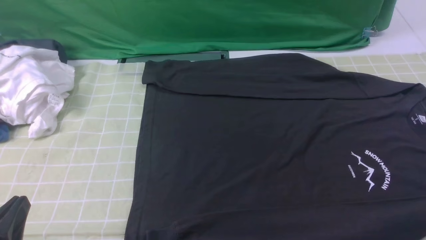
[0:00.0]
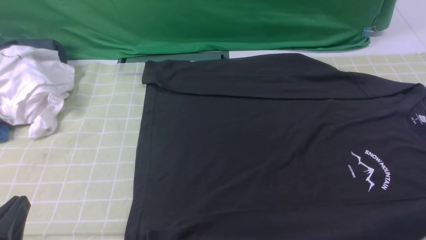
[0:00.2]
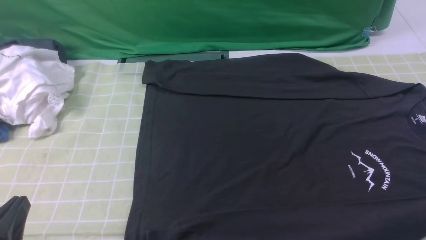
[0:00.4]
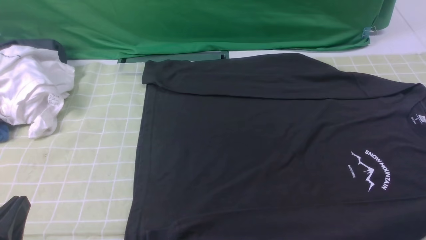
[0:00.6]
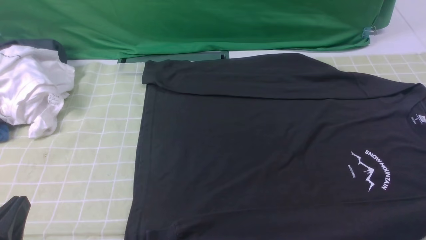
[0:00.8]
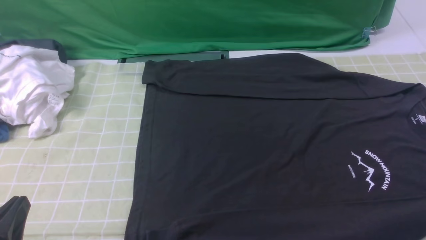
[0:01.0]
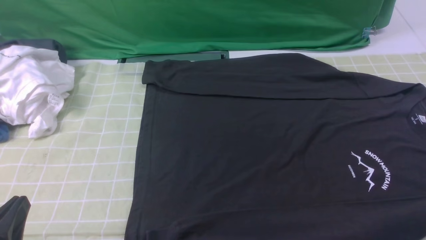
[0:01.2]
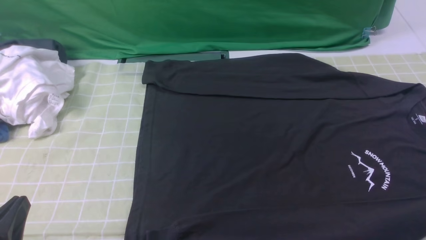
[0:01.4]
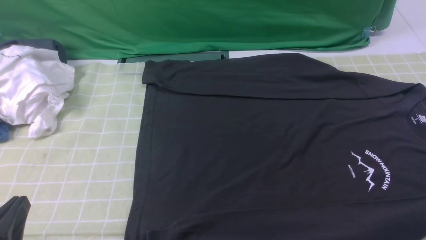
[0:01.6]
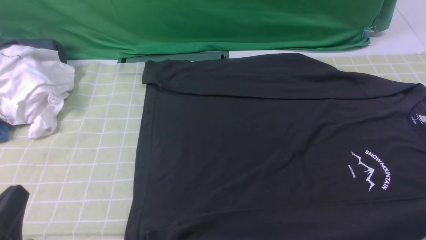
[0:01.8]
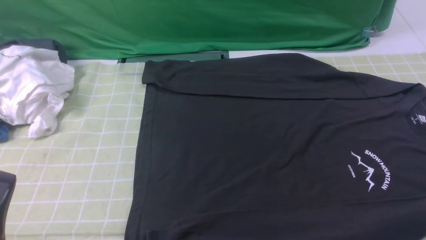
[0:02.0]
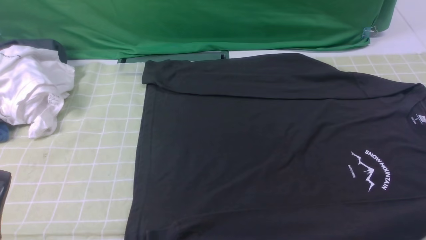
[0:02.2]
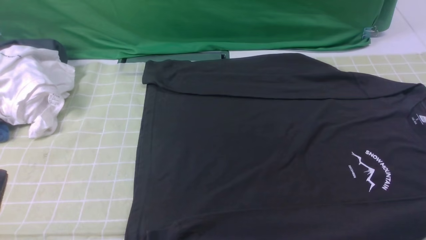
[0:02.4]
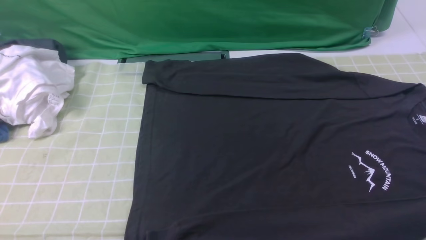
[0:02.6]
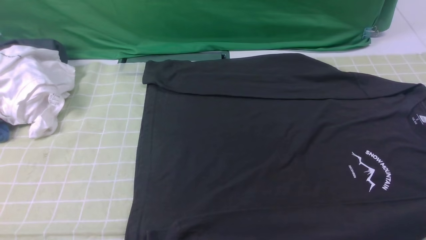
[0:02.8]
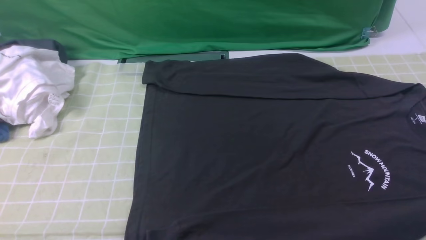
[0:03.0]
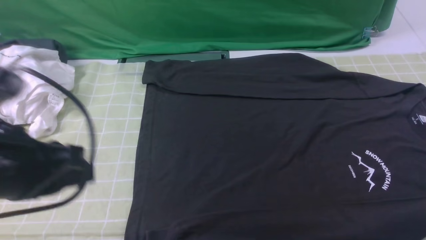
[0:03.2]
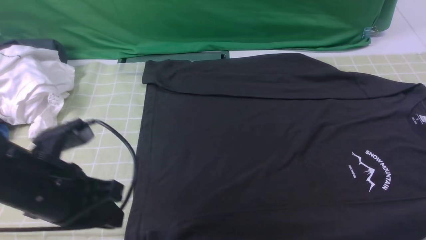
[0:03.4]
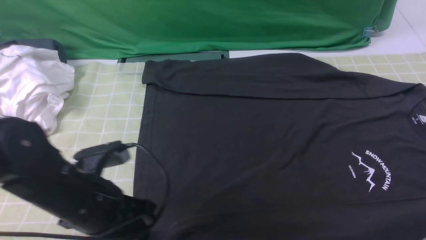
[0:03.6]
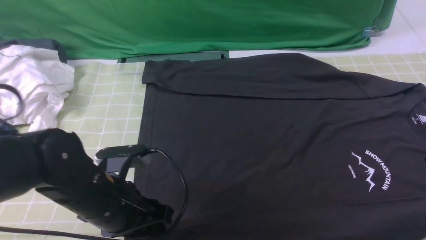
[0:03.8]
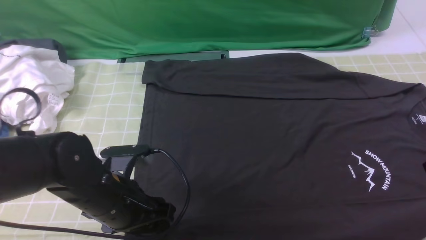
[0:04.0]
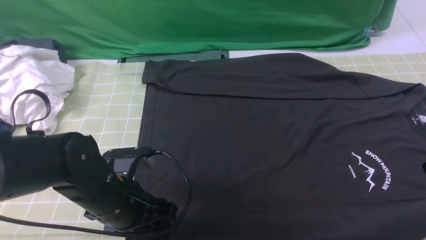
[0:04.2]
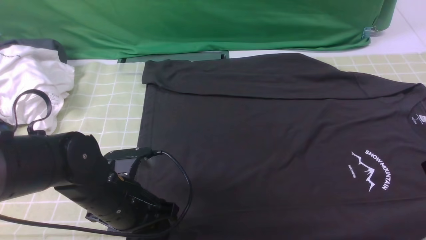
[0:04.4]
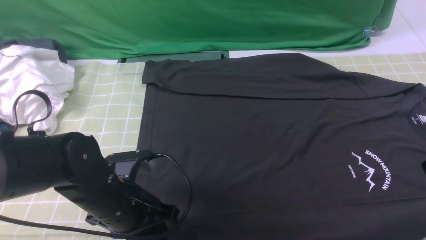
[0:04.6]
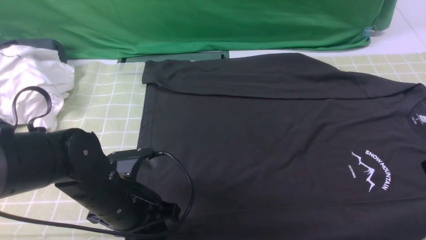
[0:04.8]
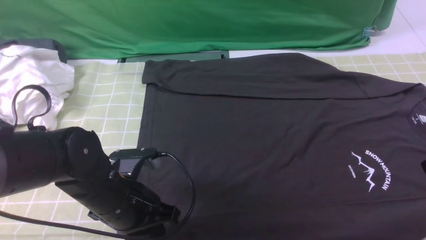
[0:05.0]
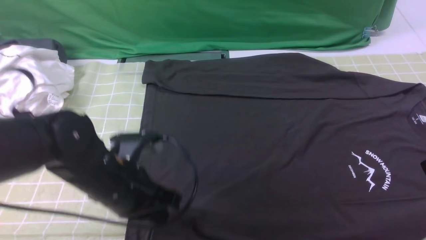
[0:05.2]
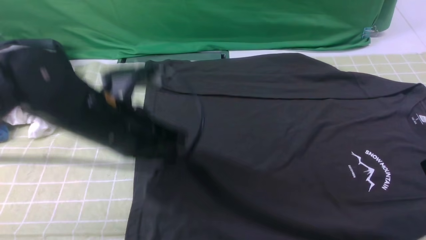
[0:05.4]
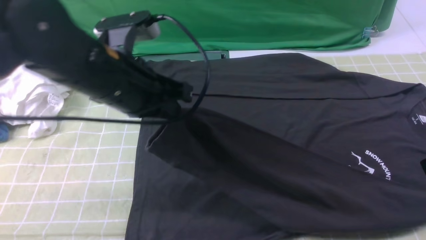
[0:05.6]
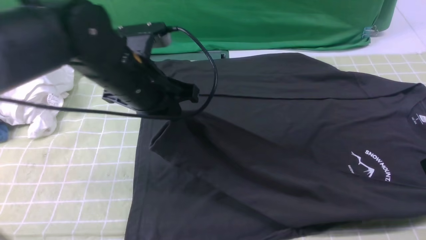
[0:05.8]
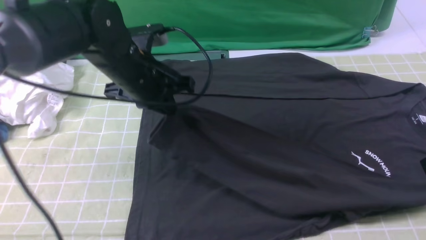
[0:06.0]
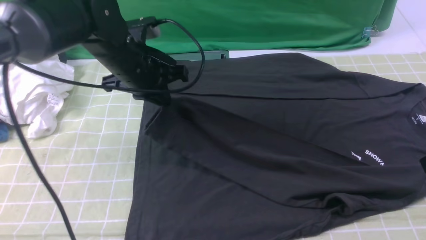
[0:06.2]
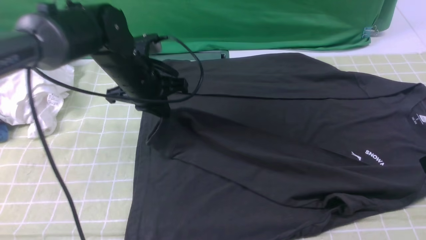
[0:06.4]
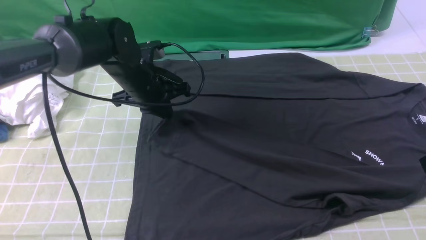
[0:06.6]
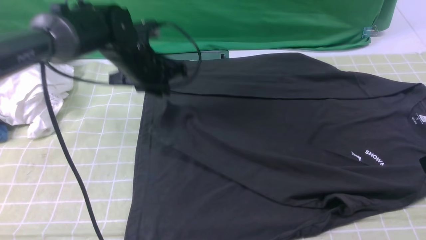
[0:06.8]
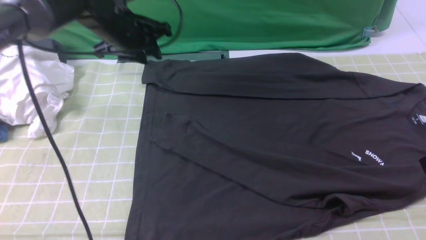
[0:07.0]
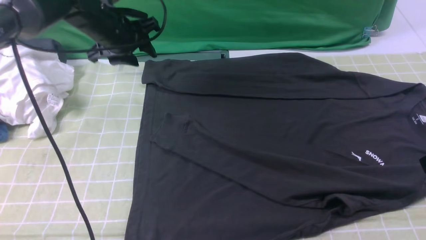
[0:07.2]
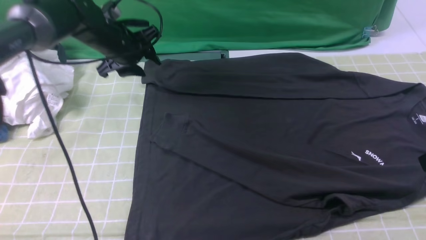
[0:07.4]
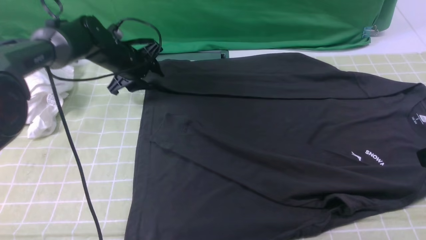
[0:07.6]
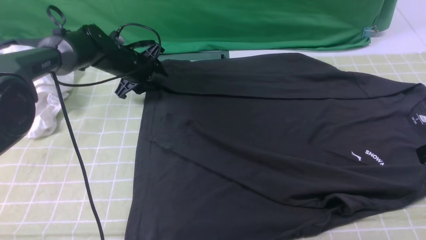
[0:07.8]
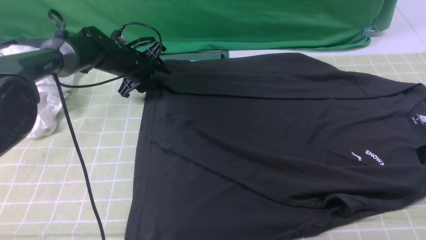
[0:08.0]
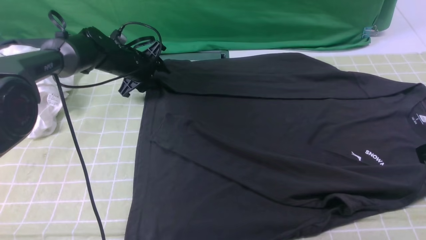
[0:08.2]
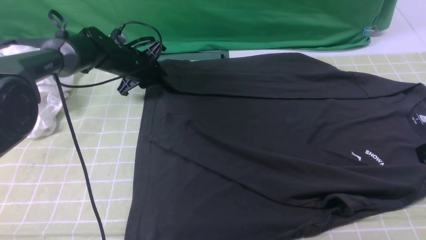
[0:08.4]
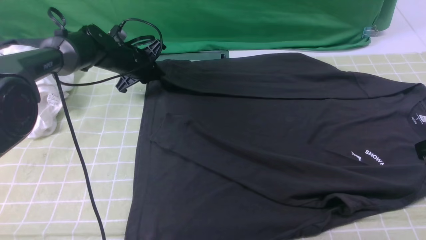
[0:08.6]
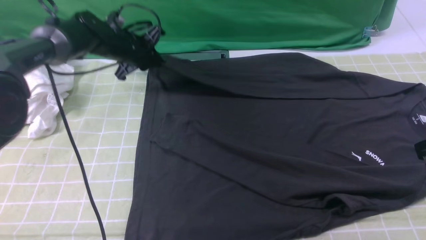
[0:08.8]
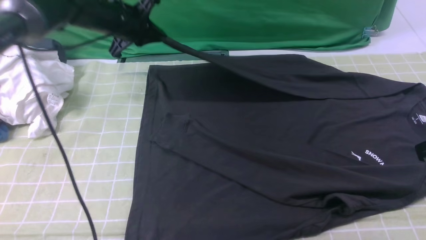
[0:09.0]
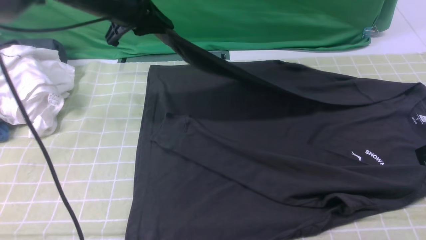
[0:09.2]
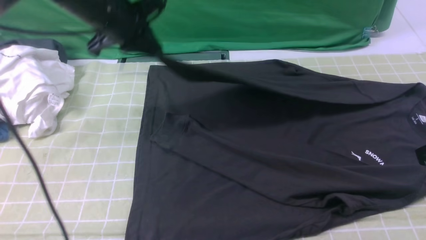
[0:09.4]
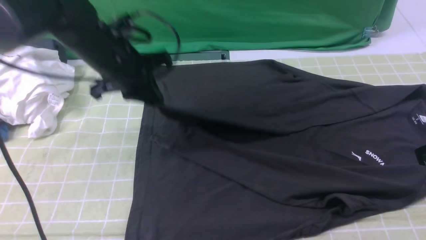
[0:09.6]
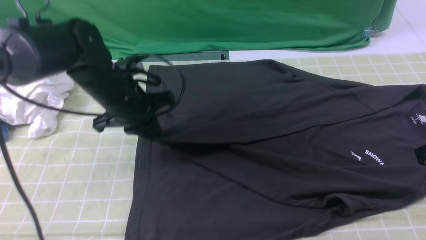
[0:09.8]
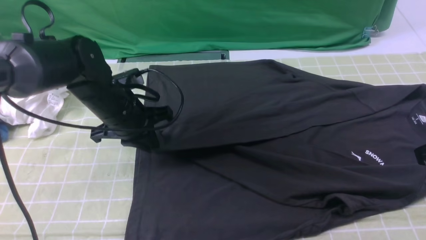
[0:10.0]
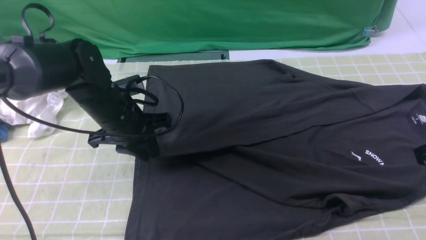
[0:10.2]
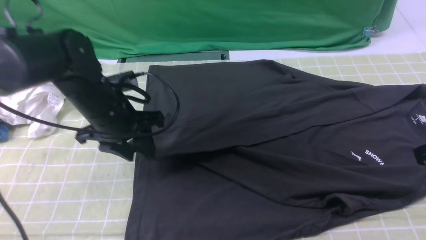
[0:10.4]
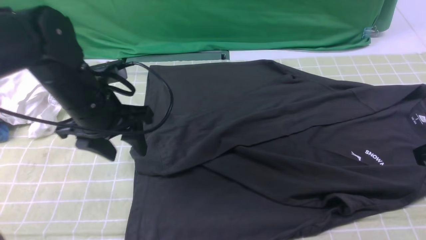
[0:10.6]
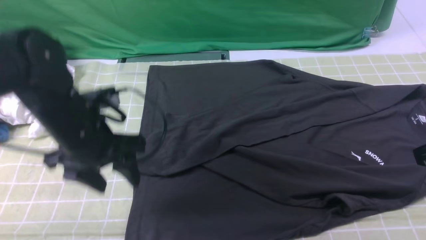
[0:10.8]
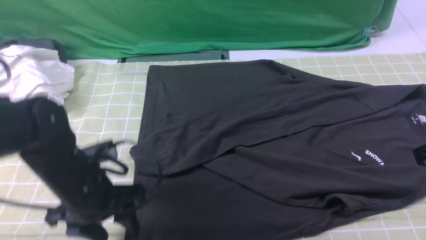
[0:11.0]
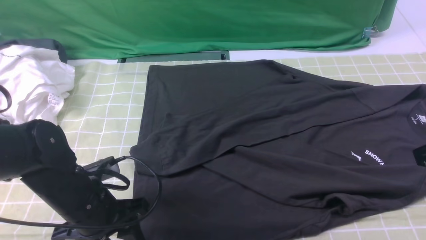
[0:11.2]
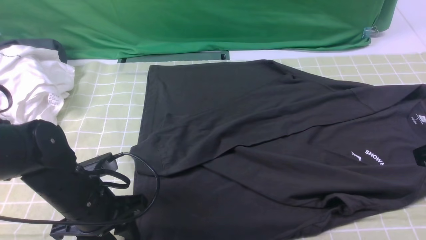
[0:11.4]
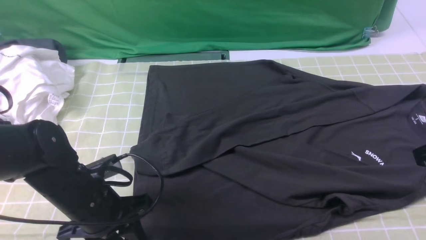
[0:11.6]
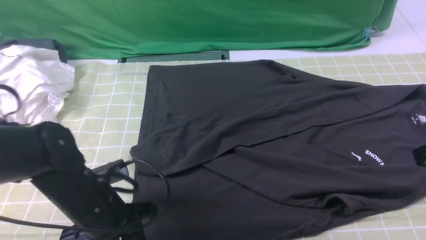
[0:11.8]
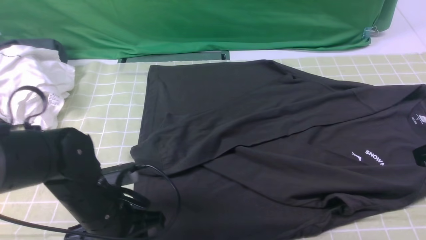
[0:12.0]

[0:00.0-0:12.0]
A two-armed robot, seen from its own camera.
Step, 0:00.0 to 0:04.8: use the left arm to clamp the cuff closest to it.
Step, 0:05.0 to 0:06.8: use the left arm to drag and place the cuff at the centered position on the left edge of the fabric.
Step, 0:07.0 to 0:08.4: use the left arm to clamp the cuff farthest from it.
Step, 0:08.8 to 0:10.4: use the left arm to drag and drop the cuff onto the cuff closest to the left arm.
0:01.6 to 0:03.0: The left gripper goes roughly 15 cm upward.
0:03.0 to 0:04.4: The left gripper moves downward, forward and to the right, some 25 cm, and opens up; the right gripper shifts approximately 10 cm forward.
0:04.4 to 0:06.0: The left gripper shifts about 20 cm forward and upward, and closes its fingers.
0:06.0 to 0:07.6: The left gripper goes approximately 20 cm forward, downward and to the left, and opens up.
0:07.6 to 0:09.0: The left gripper heads upward, covering about 10 cm, and closes up.
0:09.0 to 0:10.4: The left gripper goes some 15 cm backward, and opens its fingers.
0:10.4 to 0:12.0: The left gripper travels backward and downward by roughly 15 cm.

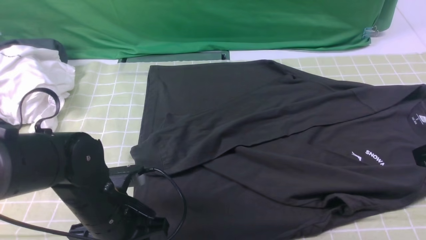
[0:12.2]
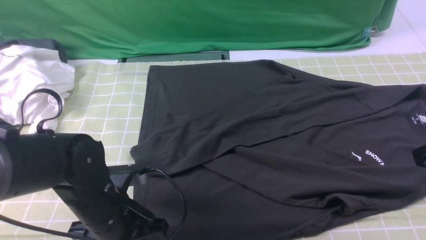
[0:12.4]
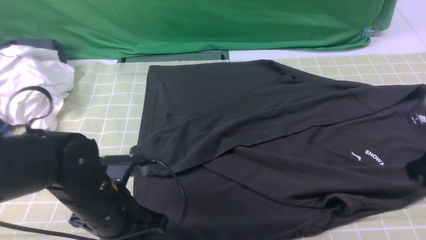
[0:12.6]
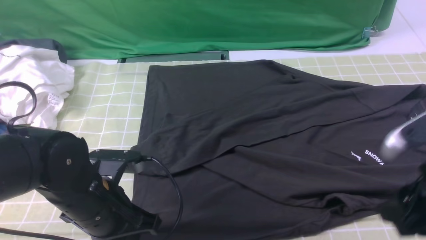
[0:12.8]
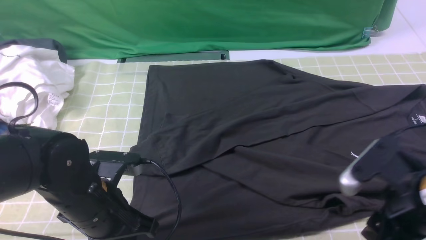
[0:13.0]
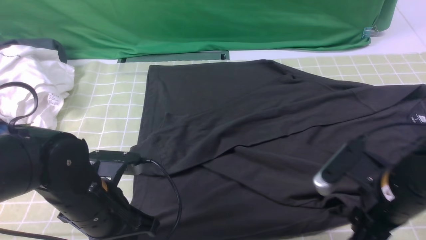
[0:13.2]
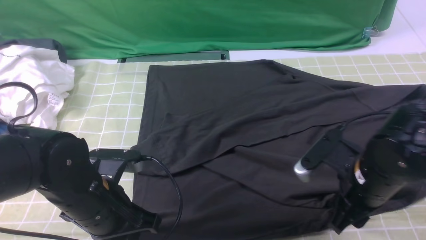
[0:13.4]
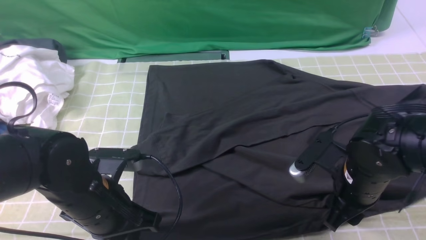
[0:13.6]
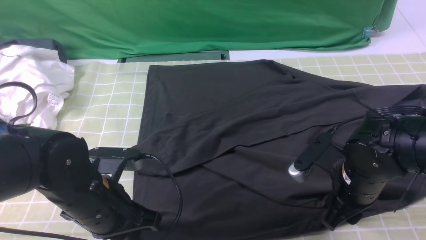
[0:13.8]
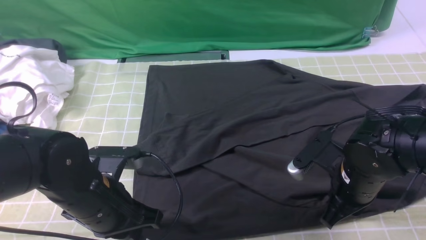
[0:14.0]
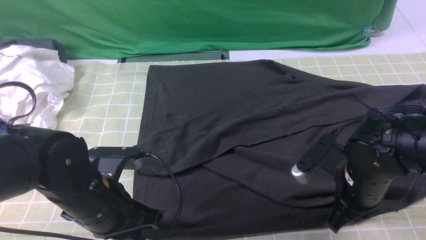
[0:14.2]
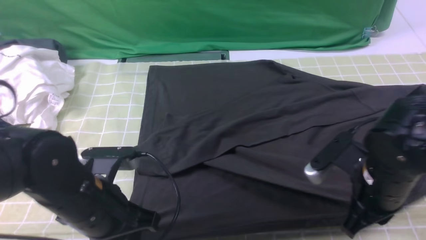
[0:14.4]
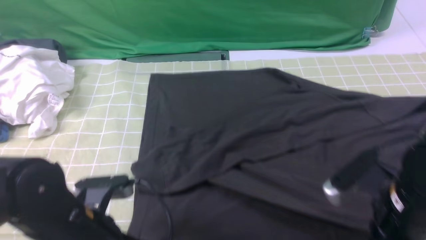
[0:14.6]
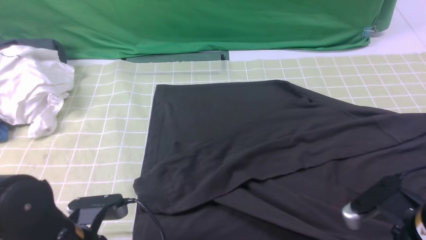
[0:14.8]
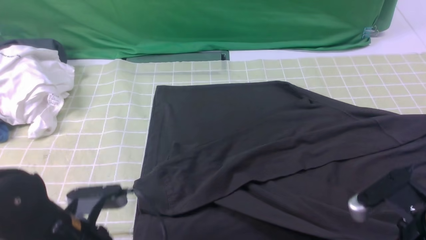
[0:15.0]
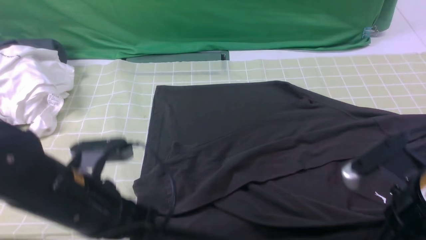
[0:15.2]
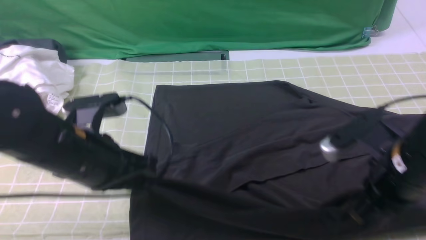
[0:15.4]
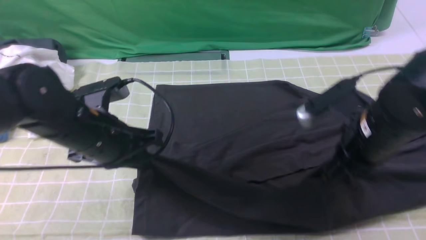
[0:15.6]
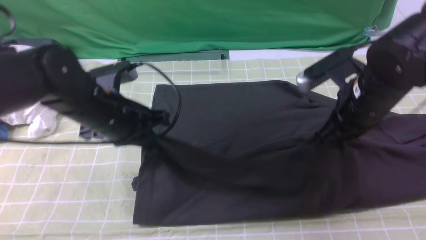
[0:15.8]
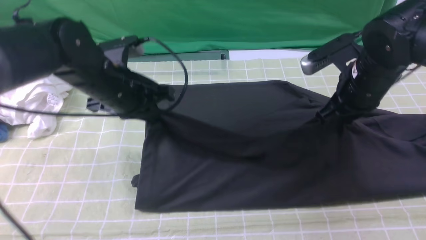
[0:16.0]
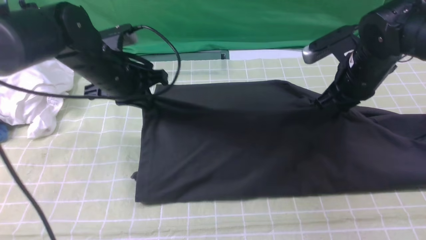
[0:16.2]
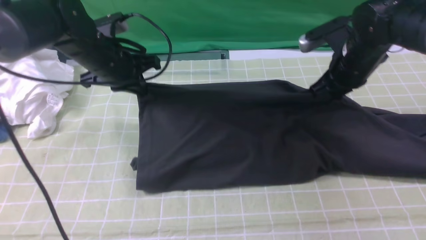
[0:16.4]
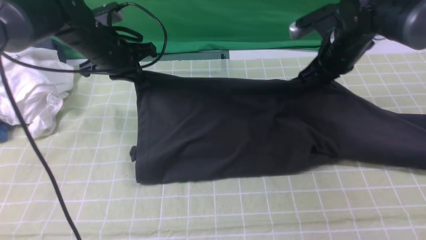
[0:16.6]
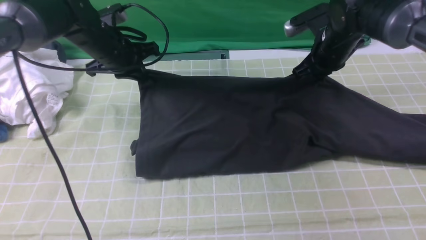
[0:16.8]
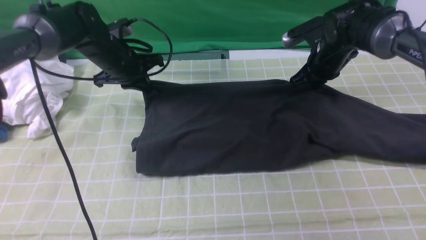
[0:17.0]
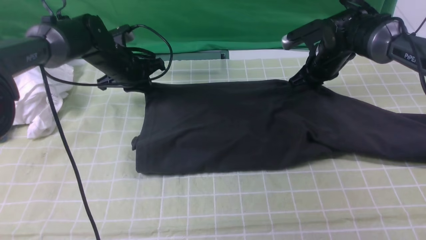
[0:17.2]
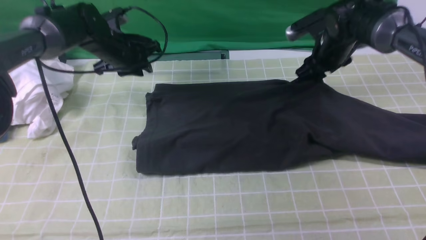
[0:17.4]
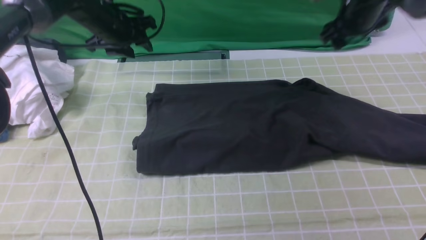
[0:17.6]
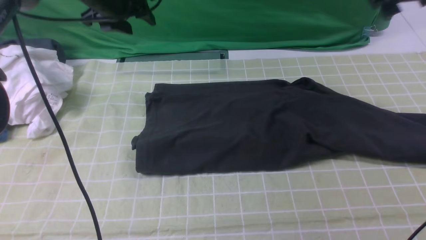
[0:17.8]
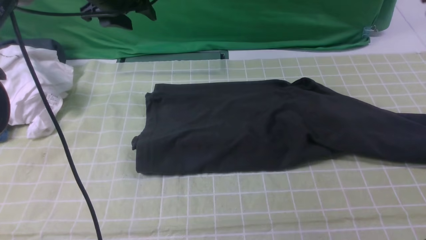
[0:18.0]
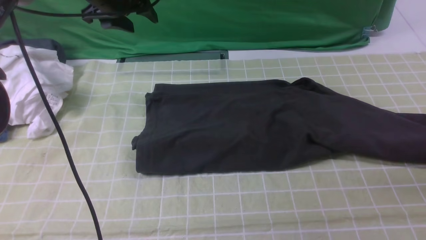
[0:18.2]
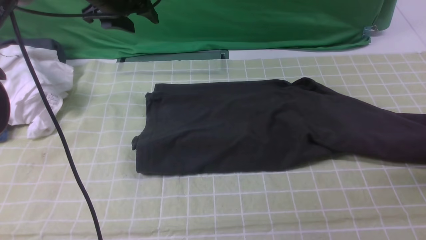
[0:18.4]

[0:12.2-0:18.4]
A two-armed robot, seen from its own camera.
Step, 0:12.2 to 0:14.2: use both arms simultaneously to clamp the lower edge of the clothing fabric.
Step, 0:14.4 to 0:17.4: use both arms to drag the lower edge of the fabric forward and fold it over the upper edge.
0:12.2 to 0:13.8: The left gripper closes. The right gripper moves downward and to the left, approximately 20 cm.
0:13.8 to 0:15.4: Both grippers travel together upward, roughly 5 cm. The left gripper reaches about 5 cm backward, then returns. Meanwhile the right gripper travels backward and back again, approximately 10 cm each way, and closes up.
0:15.4 to 0:16.8: Both grippers travel together forward, about 25 cm.
0:16.8 to 0:18.4: The left gripper heads upward, covering some 10 cm, and opens its fingers. Meanwhile the right gripper shifts about 25 cm to the right and backward, and opens its fingers.
